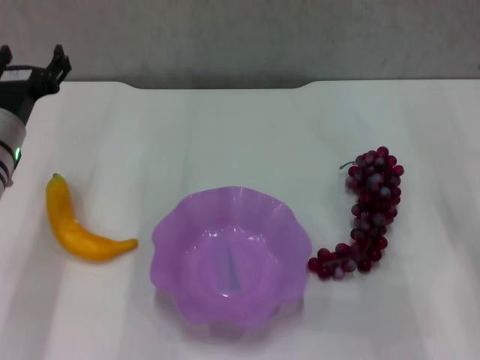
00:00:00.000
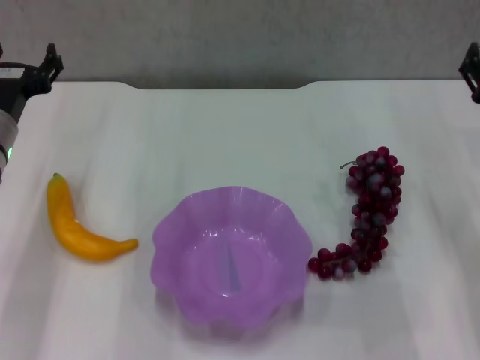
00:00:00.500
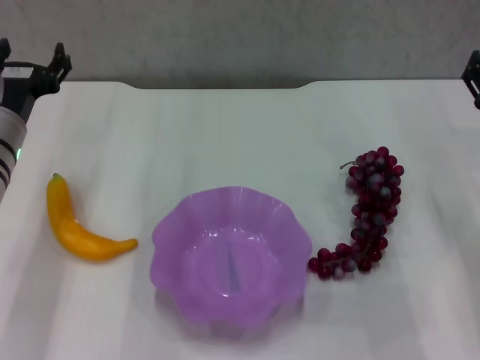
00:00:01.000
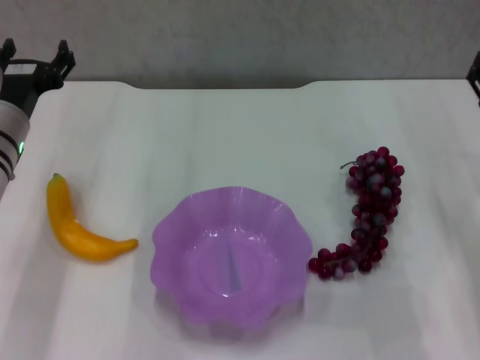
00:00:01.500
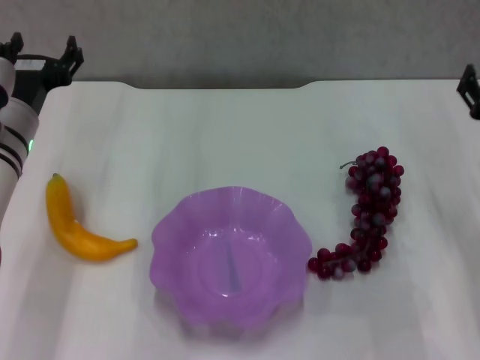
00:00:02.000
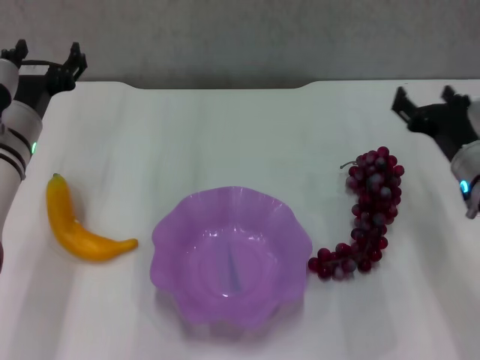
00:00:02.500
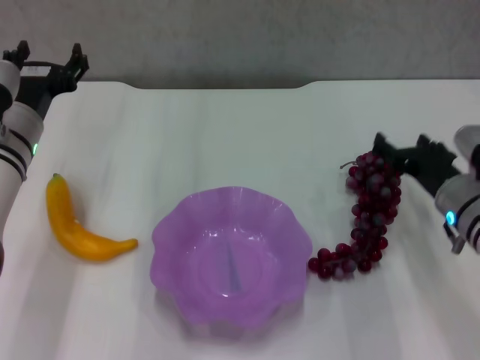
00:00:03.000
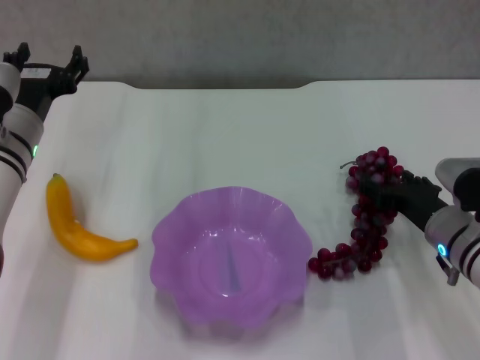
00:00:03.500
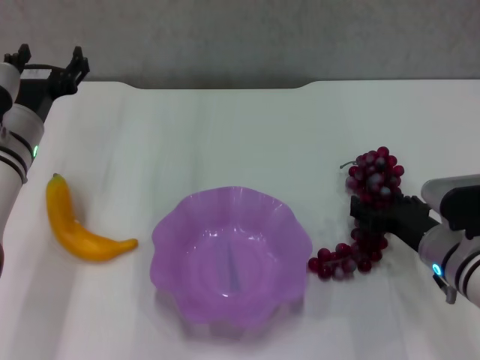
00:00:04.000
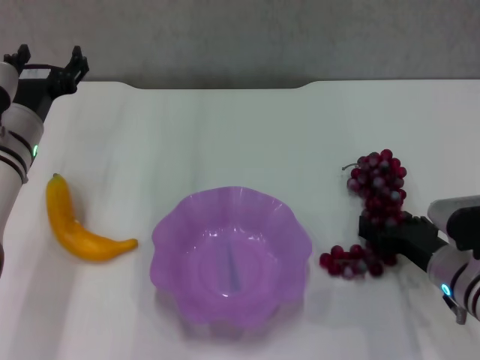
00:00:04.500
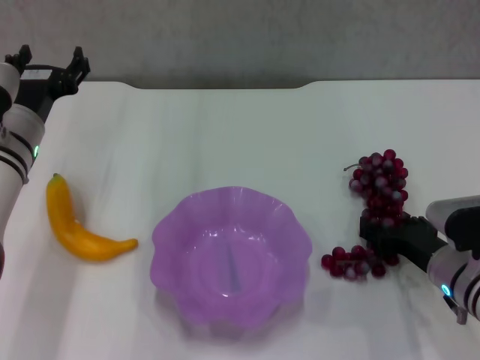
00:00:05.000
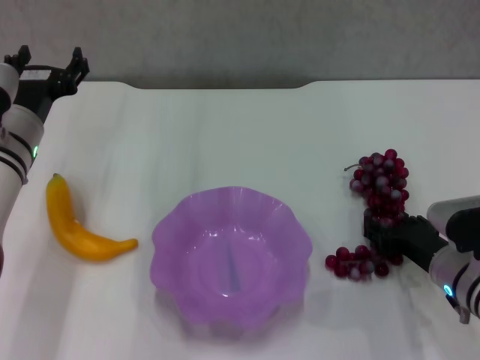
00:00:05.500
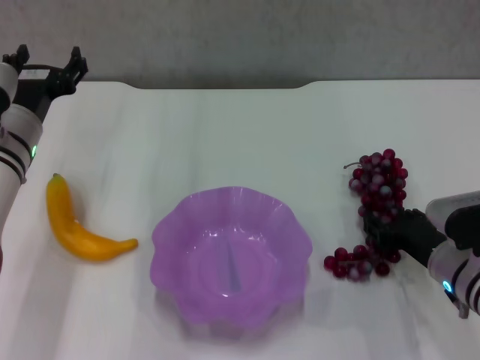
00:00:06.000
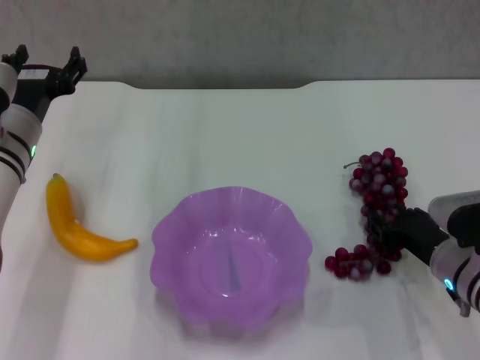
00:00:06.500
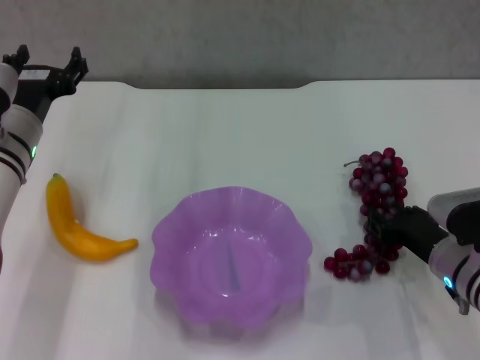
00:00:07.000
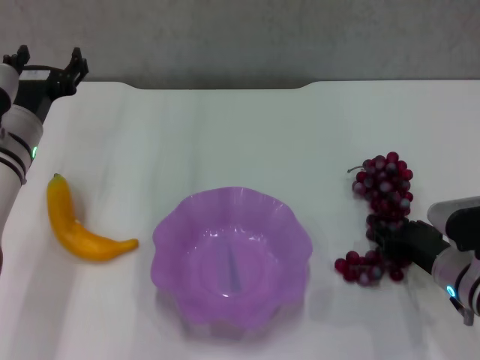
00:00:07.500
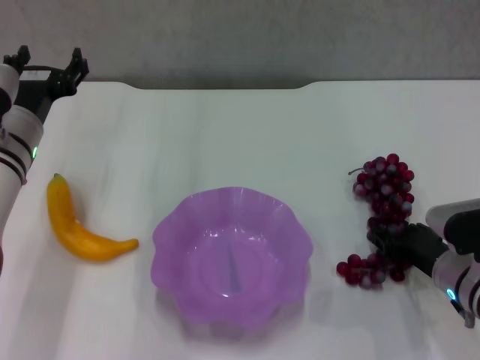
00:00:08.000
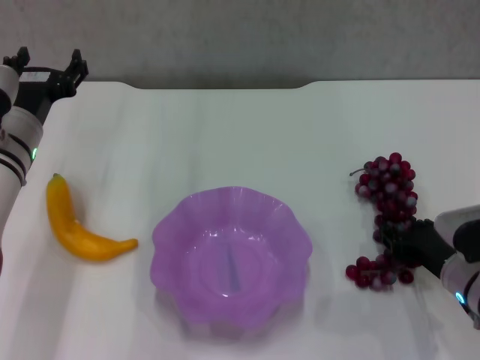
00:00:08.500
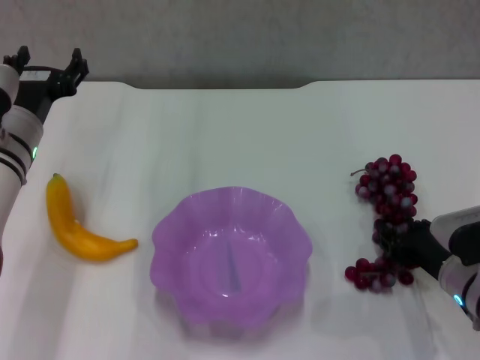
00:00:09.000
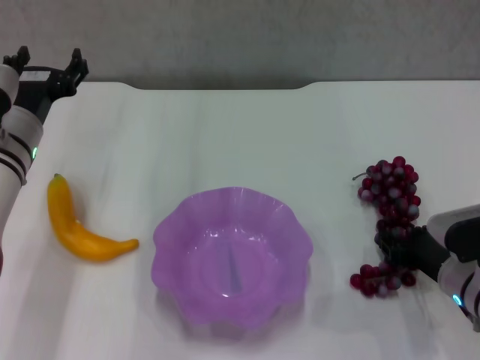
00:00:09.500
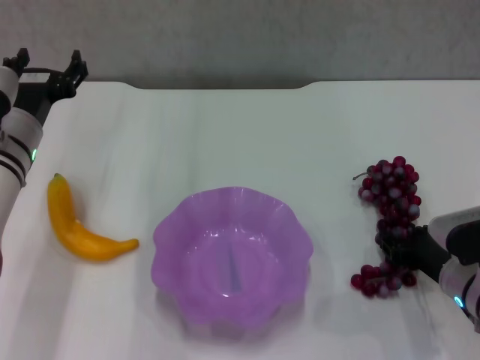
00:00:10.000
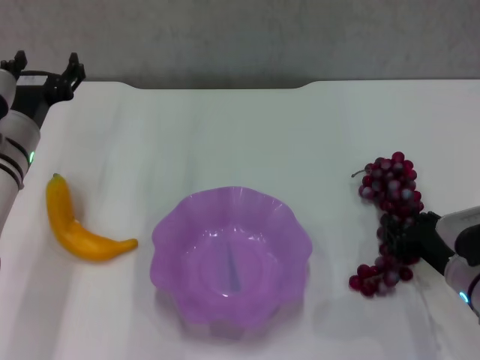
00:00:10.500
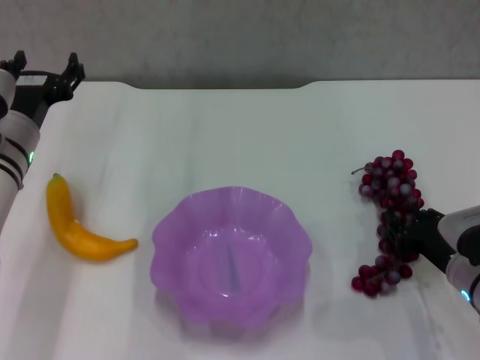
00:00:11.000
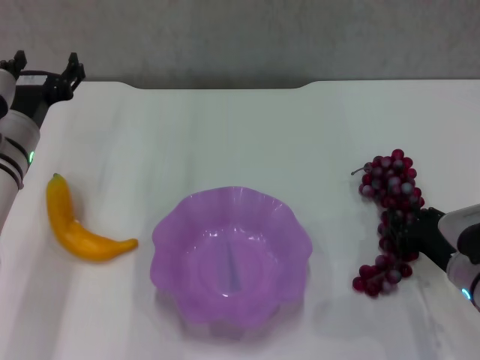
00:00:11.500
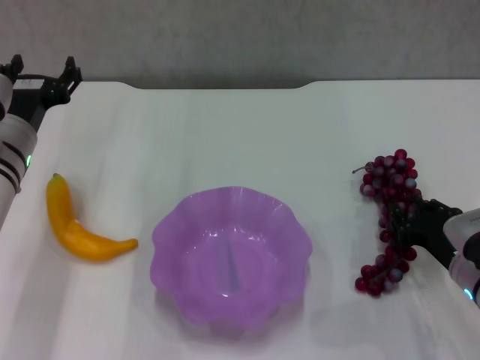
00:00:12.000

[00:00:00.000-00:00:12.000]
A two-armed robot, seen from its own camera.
00:00:00.000 to 00:00:02.000: The grippers stay close to where they were, moving slightly.
00:00:02.000 to 00:00:04.000: The right gripper is displaced downward and to the left by approximately 10 cm.
00:00:04.000 to 00:00:06.000: The right gripper closes its fingers.
00:00:06.000 to 00:00:12.000: The grippers make only small movements.

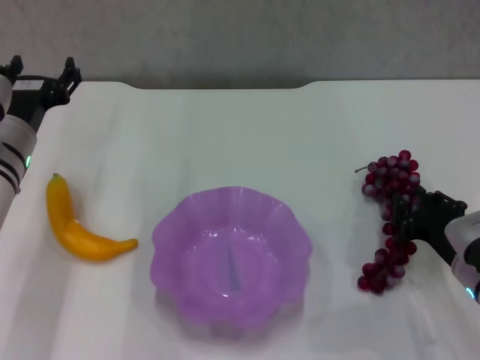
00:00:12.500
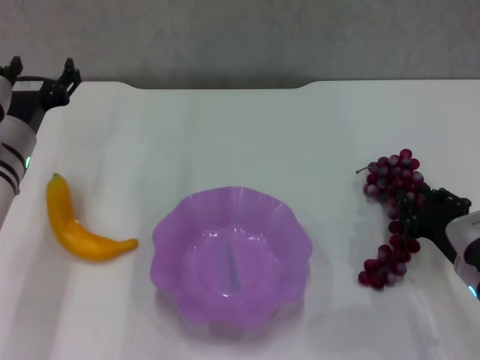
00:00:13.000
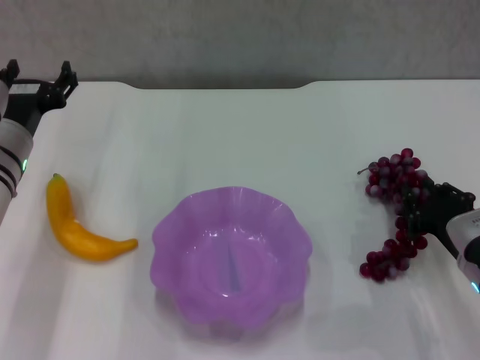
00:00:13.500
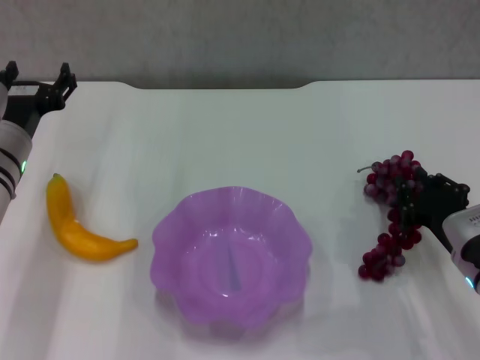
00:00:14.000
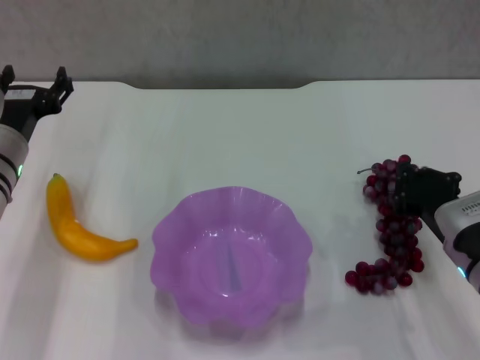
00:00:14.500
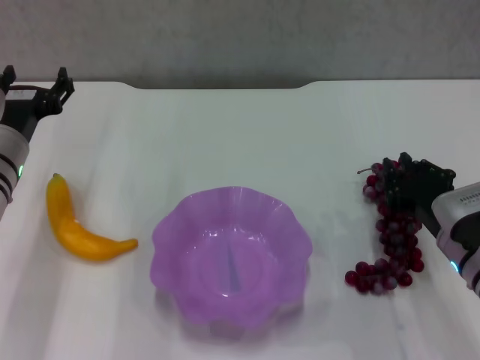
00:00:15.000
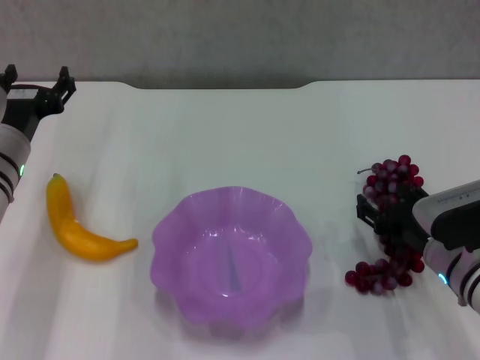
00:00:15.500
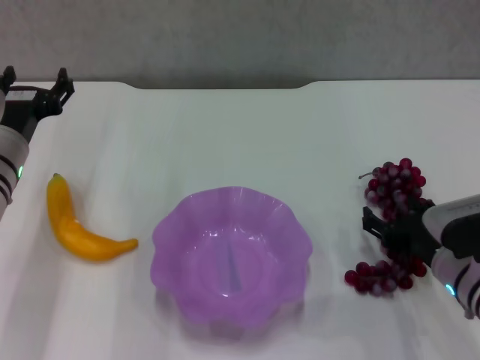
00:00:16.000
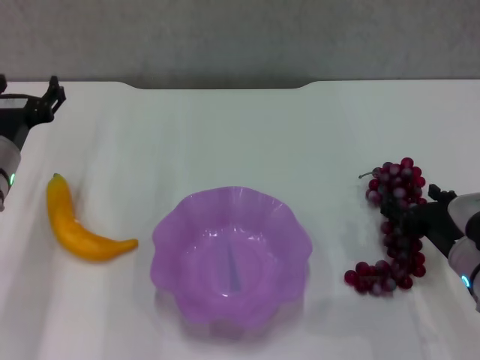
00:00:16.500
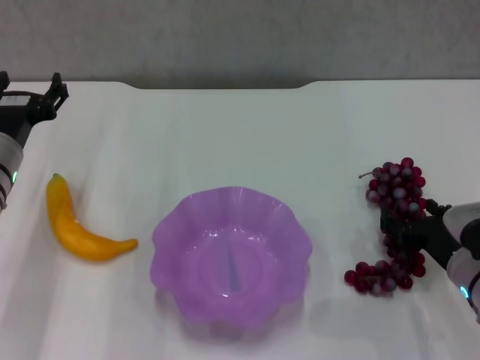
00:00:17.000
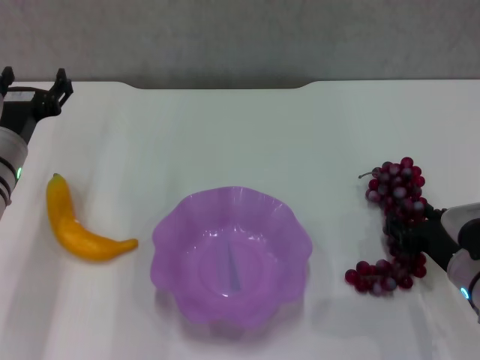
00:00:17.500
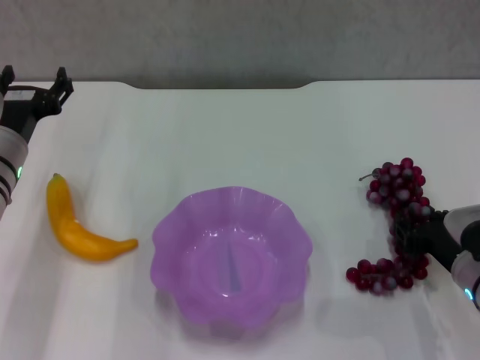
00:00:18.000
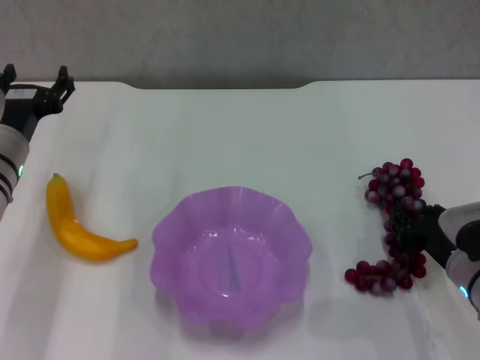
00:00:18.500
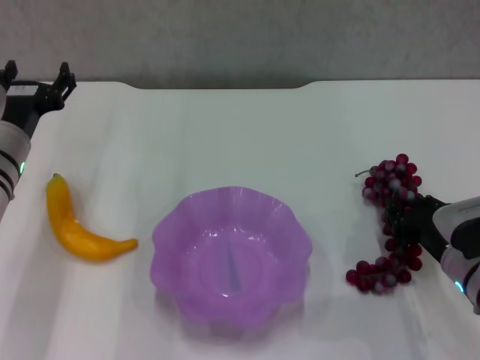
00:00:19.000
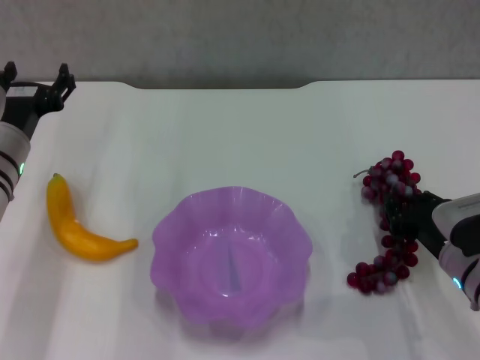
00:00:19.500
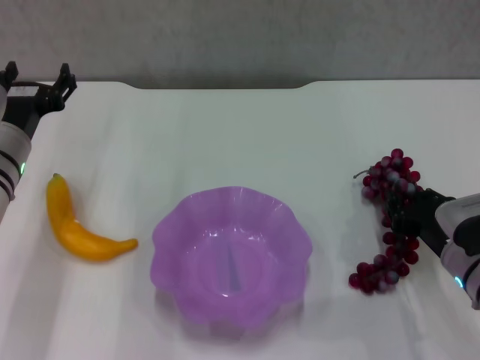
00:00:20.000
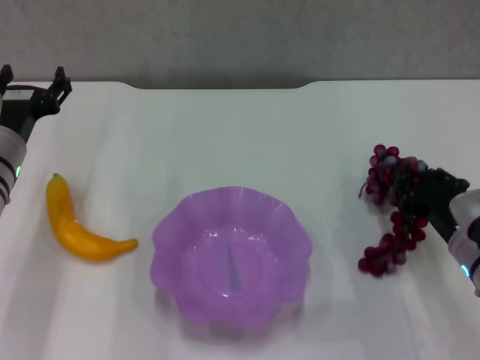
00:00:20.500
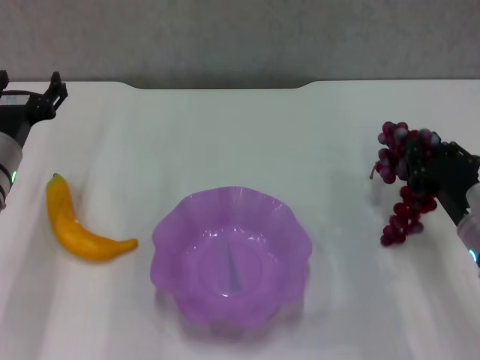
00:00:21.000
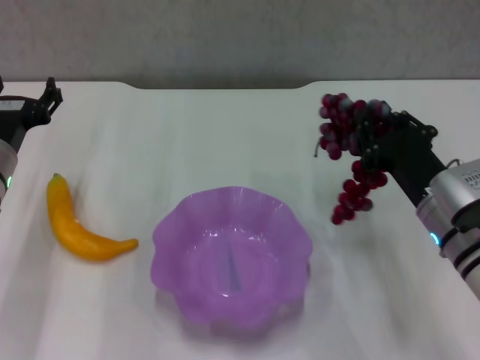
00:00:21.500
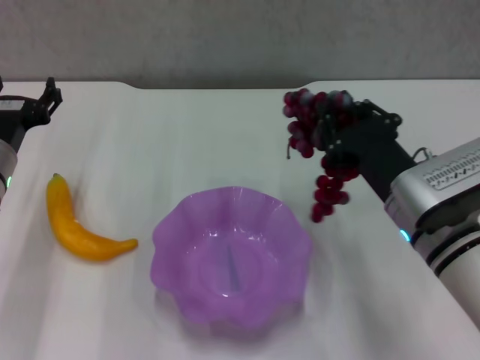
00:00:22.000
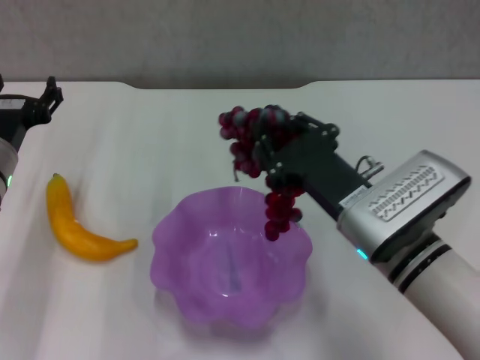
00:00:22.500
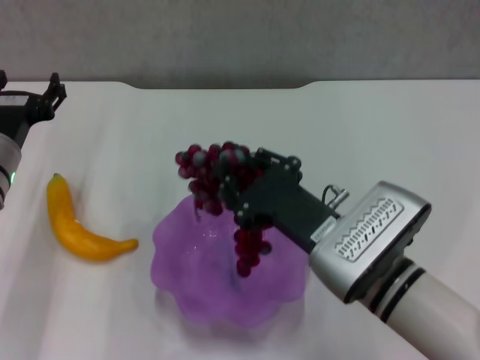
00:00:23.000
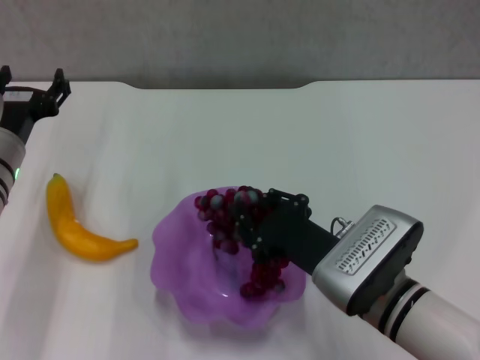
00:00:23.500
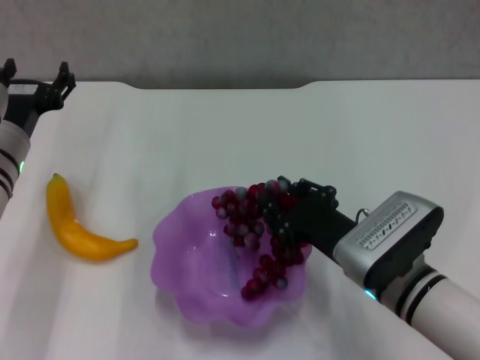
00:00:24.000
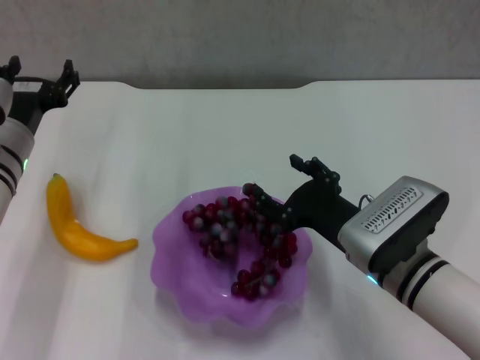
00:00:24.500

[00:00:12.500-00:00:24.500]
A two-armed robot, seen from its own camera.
Step, 00:00:12.500 to 00:00:18.500: Grasp the grape with right gripper.
Step, 00:00:19.000 to 00:00:24.000: Place the grape in the purple plate with right gripper.
00:00:12.500 to 00:00:14.500: There are only small adjustments of the grippers.
00:00:14.500 to 00:00:16.500: The right gripper opens.
00:00:16.500 to 00:00:18.500: The right gripper closes up.
00:00:18.500 to 00:00:20.500: The grippers make only small movements.
00:00:20.500 to 00:00:22.500: The right gripper goes roughly 15 cm to the left and upward.
00:00:22.500 to 00:00:24.500: The right gripper opens its fingers.

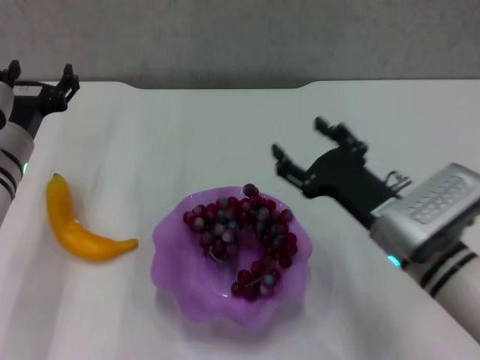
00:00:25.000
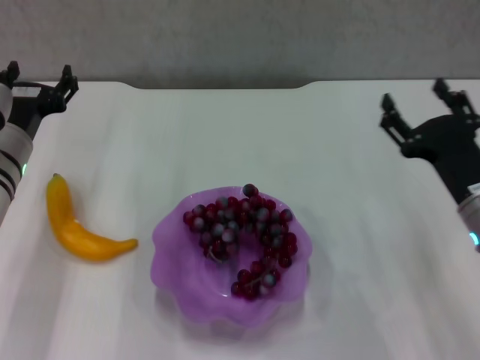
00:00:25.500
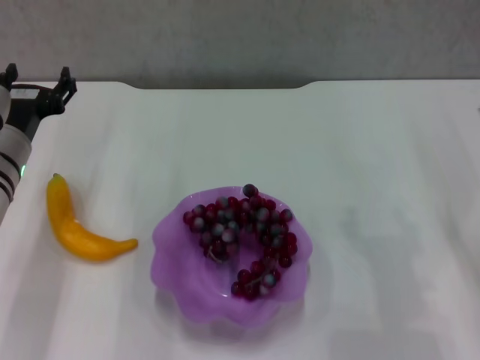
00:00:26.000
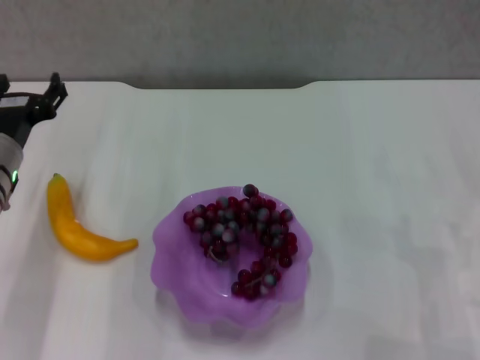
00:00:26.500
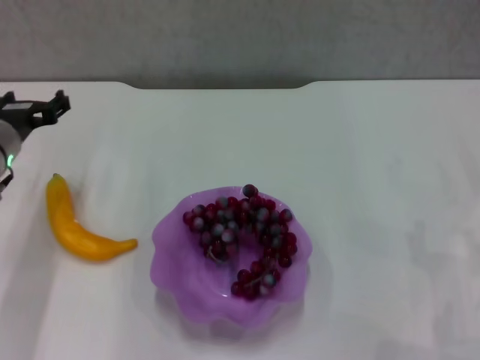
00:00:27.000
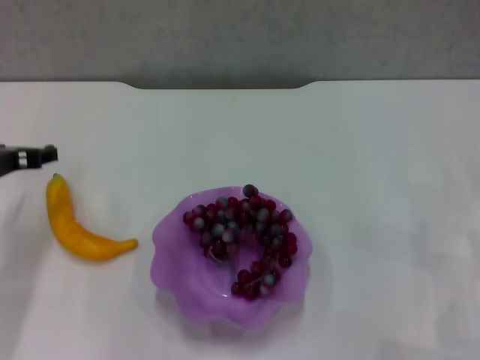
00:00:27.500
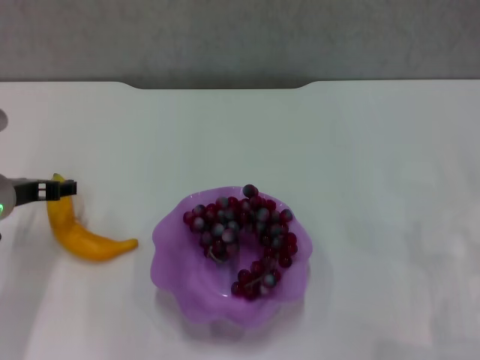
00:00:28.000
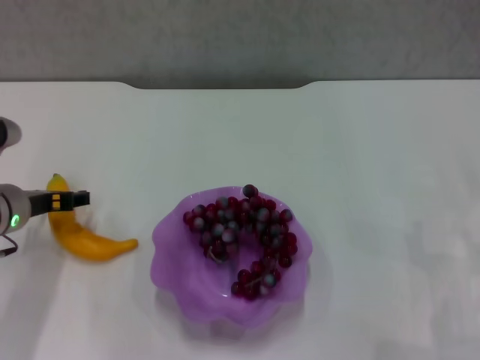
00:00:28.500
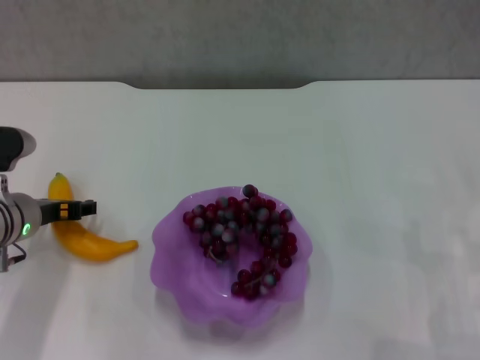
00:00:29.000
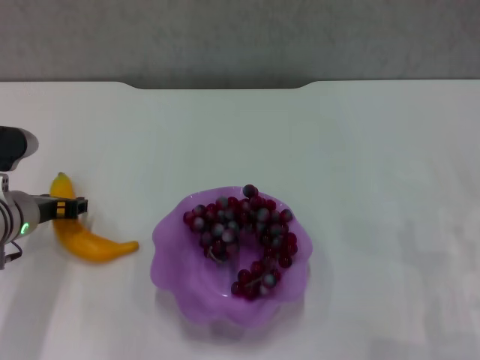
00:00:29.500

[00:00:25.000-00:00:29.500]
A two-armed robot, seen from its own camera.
00:00:25.000 to 00:00:27.000: The right gripper goes about 20 cm to the right.
00:00:27.000 to 00:00:29.500: The left gripper shifts by about 5 cm.
